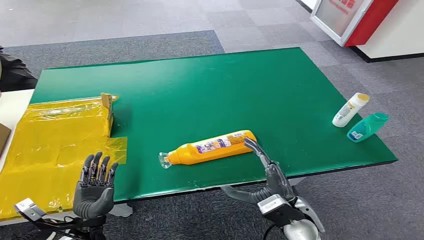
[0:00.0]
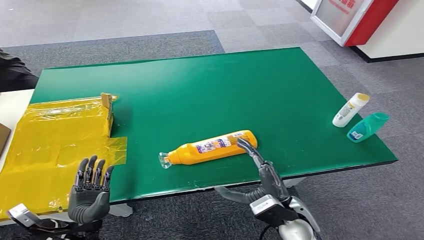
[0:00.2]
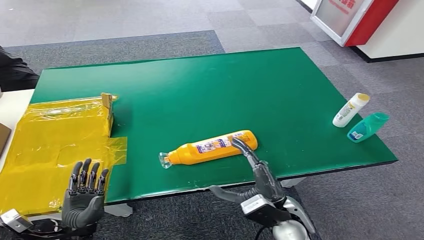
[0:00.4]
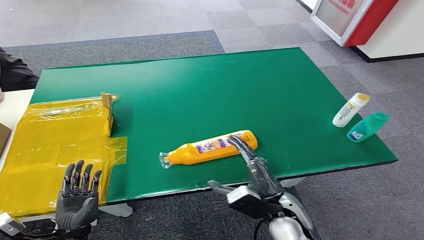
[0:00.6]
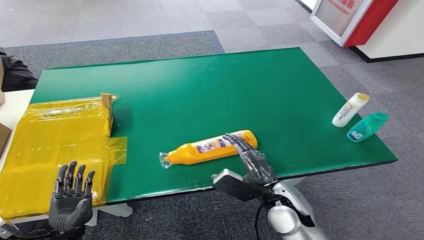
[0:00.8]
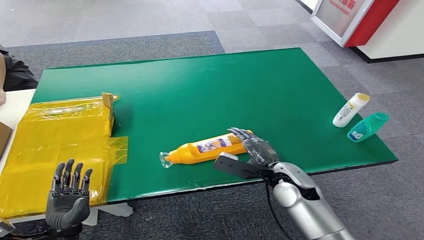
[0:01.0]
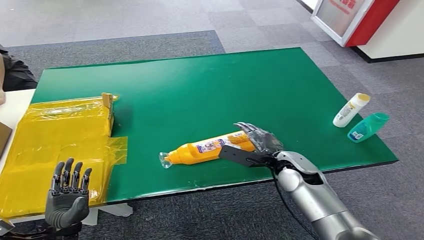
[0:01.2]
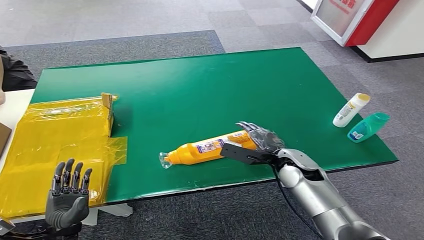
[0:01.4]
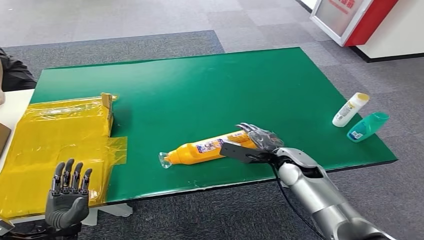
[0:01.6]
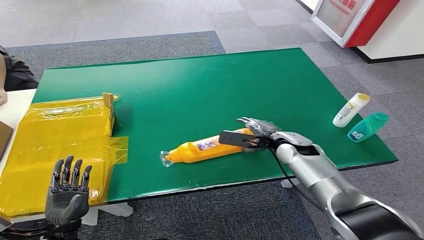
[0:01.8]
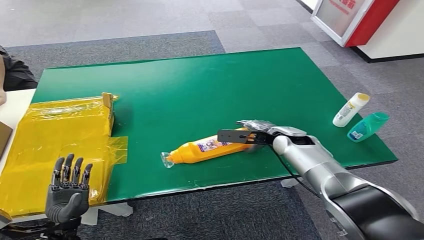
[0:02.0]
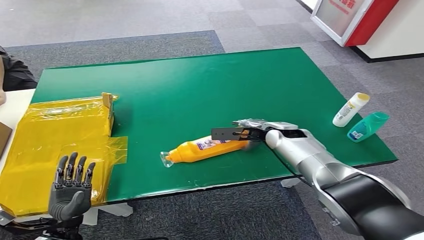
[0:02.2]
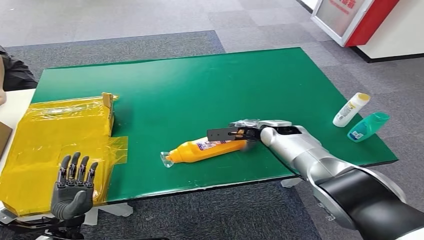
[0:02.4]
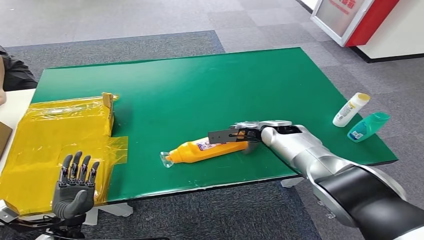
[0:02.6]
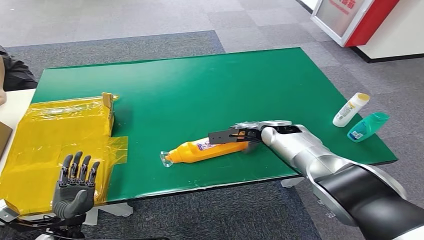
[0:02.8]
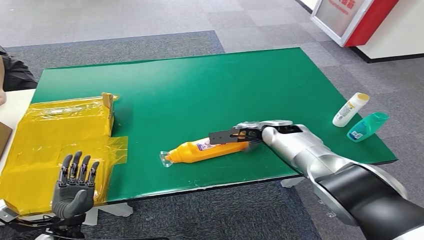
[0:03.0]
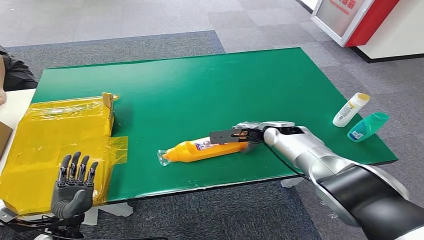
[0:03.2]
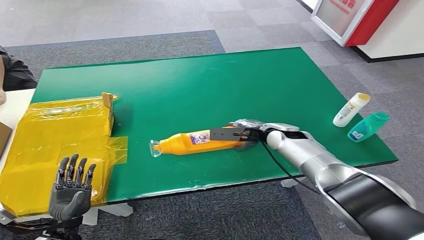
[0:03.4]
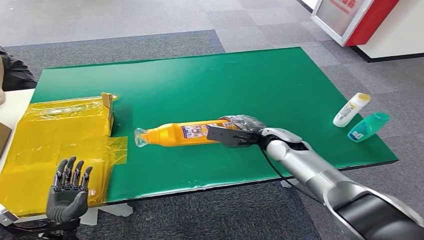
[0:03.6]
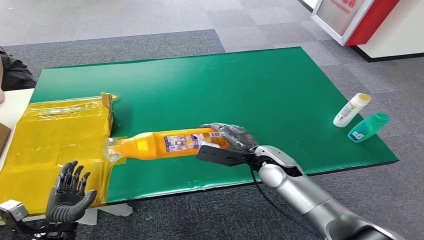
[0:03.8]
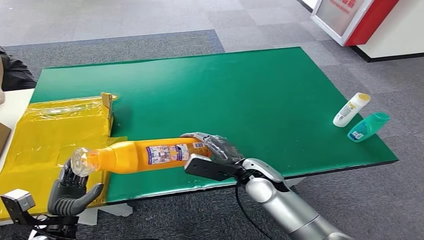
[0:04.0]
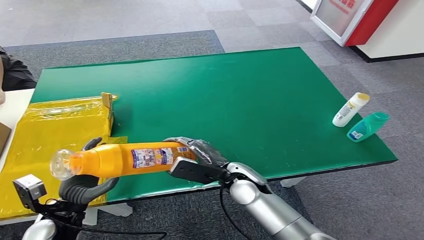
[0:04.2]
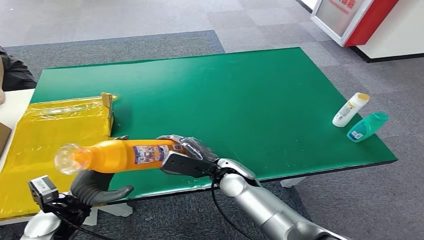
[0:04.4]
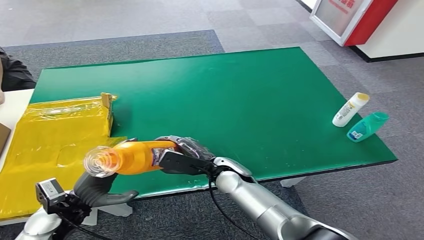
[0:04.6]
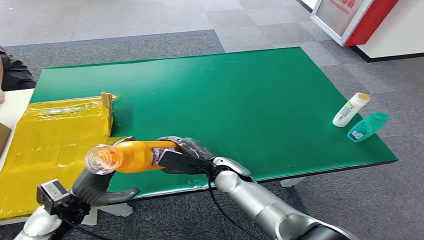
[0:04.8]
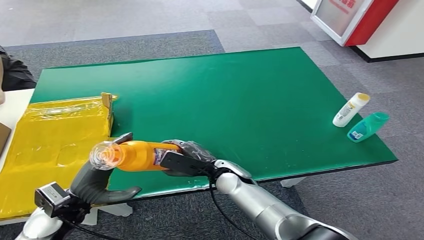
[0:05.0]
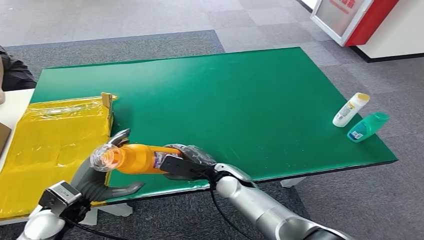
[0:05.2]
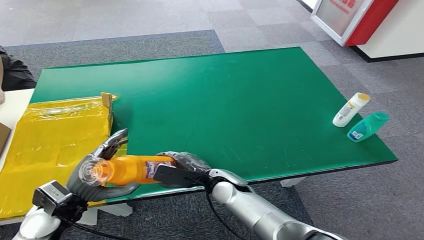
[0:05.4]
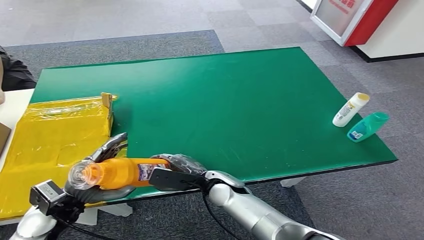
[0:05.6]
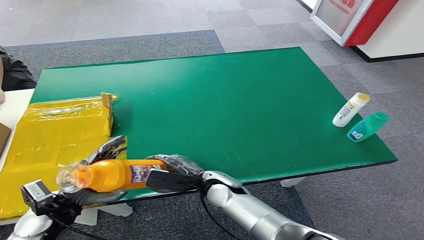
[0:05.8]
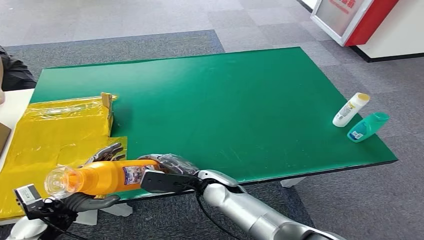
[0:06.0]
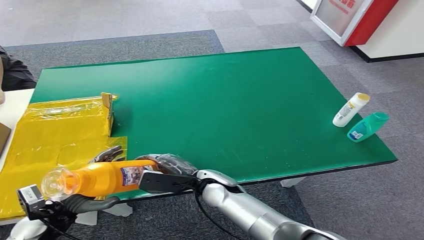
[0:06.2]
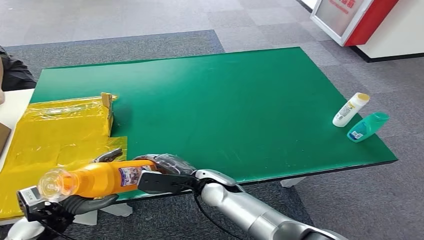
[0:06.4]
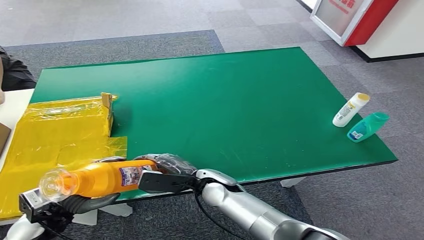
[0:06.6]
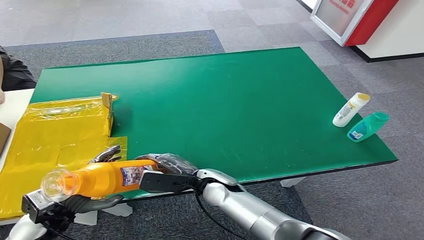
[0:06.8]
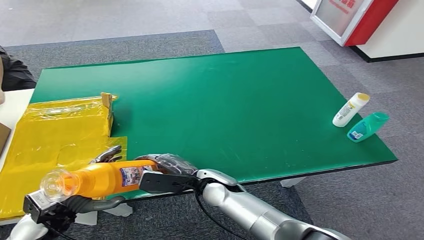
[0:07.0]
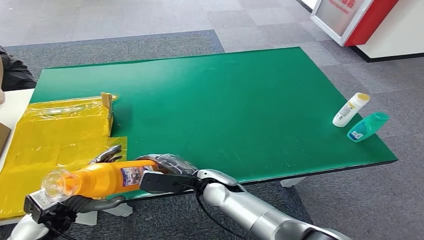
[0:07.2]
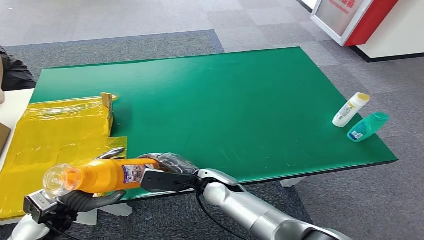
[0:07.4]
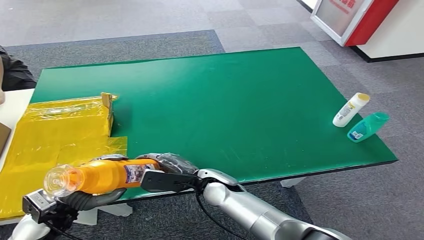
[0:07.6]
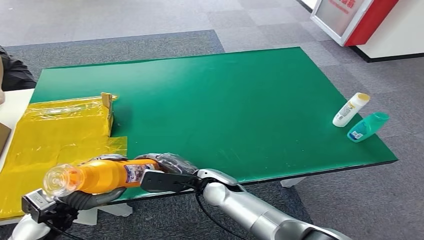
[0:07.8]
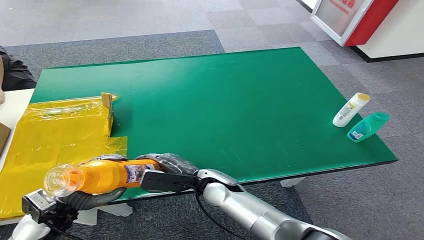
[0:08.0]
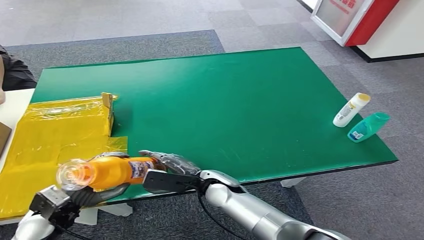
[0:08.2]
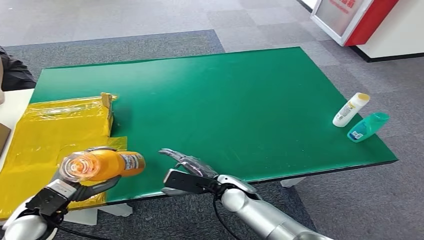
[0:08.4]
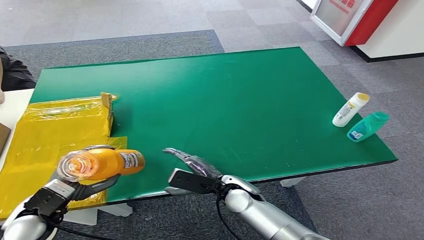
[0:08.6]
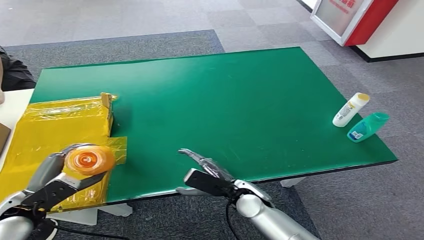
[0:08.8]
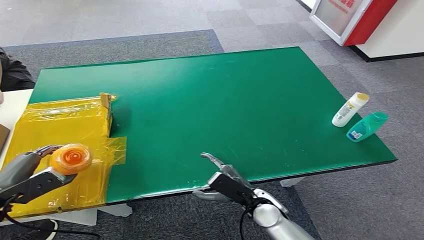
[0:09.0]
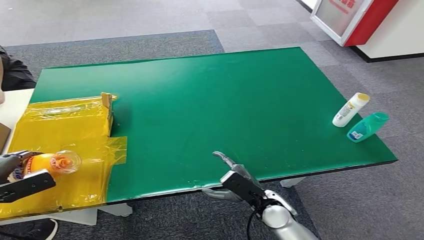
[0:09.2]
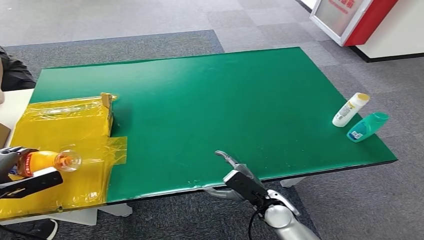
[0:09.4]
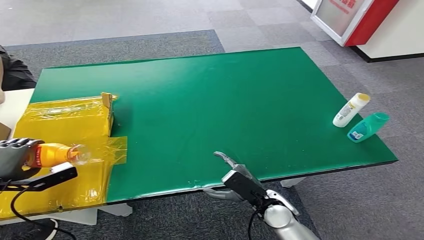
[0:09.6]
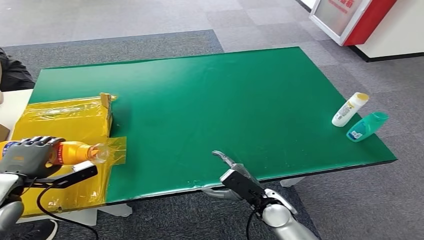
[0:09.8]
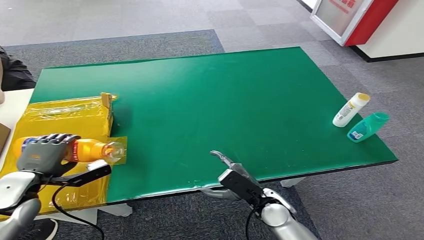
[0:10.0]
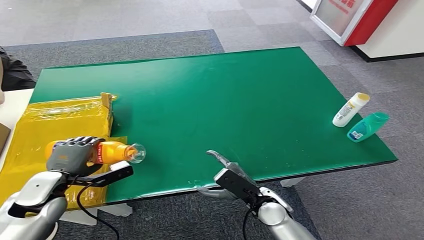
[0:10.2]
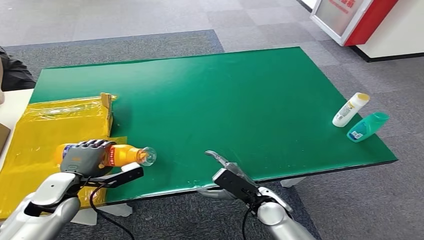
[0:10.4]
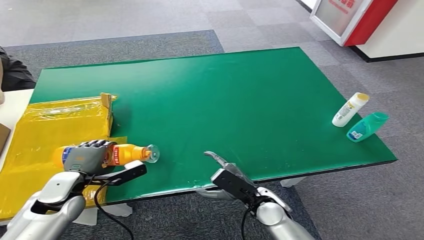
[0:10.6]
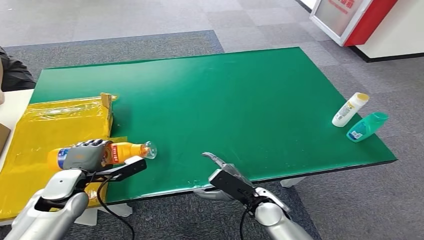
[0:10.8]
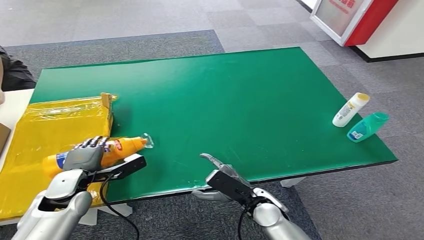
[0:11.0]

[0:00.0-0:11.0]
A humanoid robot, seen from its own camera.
Step, 0:00.0 to 0:04.2: Pick up the bottle from the table.
Step, 0:04.6 to 0:11.0: Turn the bottle to the front side.
0:01.6 to 0:03.2: The right hand is displaced forward by about 10 cm.
0:04.8 to 0:06.2: The left hand changes place by about 5 cm.
0:06.2 to 0:07.8: The hands make only small movements.
0:07.8 to 0:09.4: The left hand shifts approximately 15 cm to the left and upward. The right hand travels to the right and backward by roughly 15 cm.
0:09.4 to 0:11.0: The left hand goes roughly 20 cm to the right and downward.

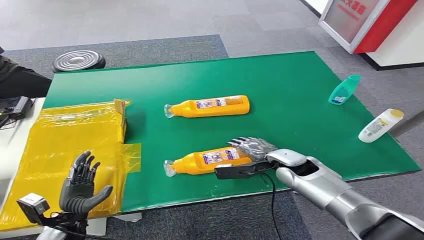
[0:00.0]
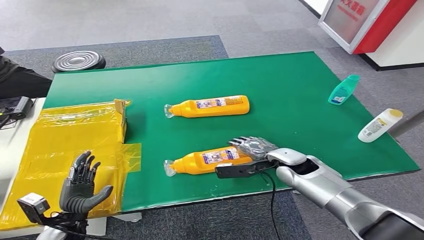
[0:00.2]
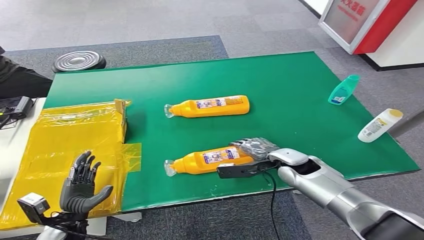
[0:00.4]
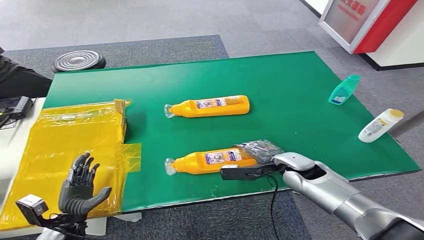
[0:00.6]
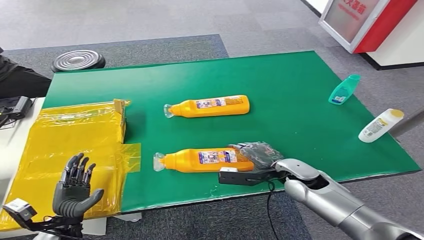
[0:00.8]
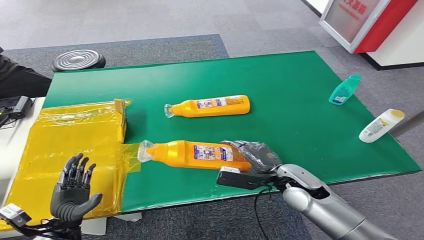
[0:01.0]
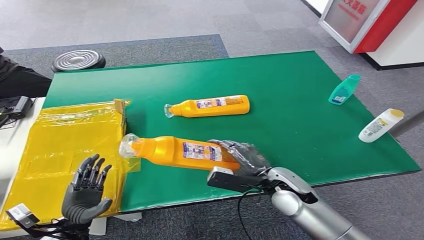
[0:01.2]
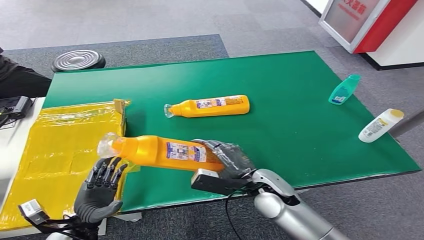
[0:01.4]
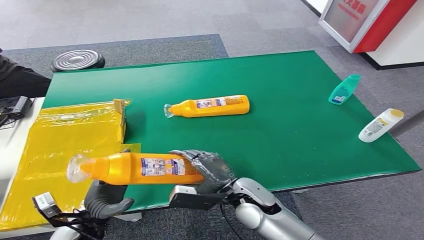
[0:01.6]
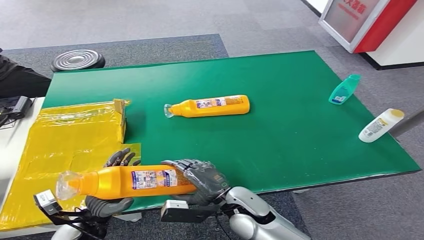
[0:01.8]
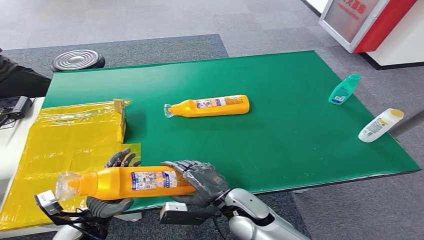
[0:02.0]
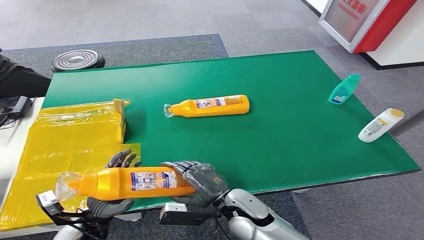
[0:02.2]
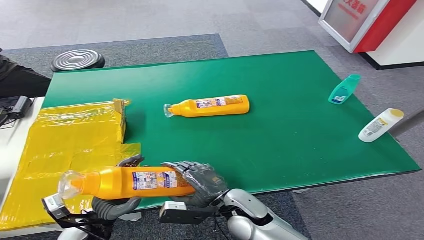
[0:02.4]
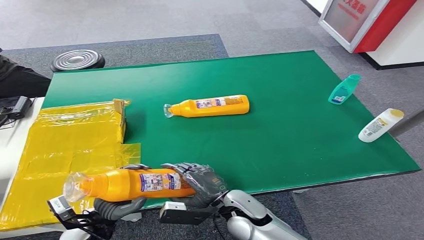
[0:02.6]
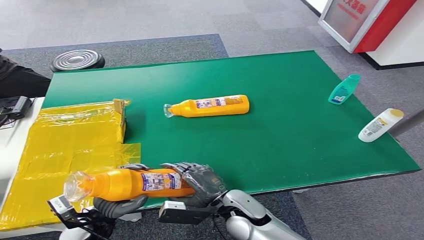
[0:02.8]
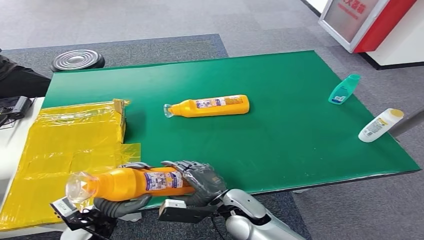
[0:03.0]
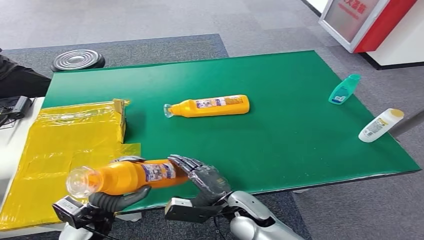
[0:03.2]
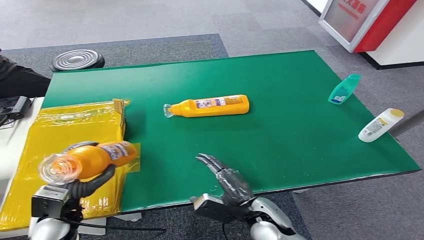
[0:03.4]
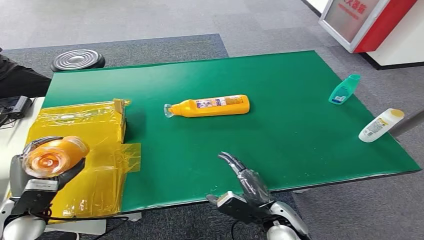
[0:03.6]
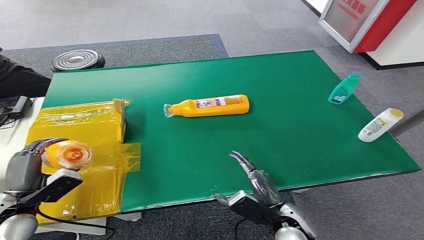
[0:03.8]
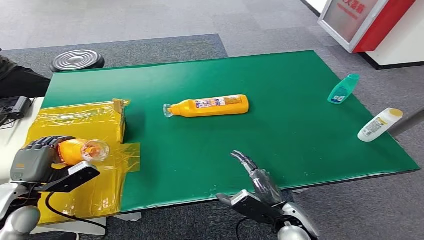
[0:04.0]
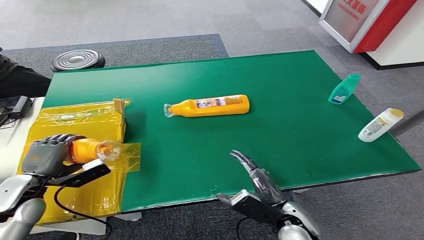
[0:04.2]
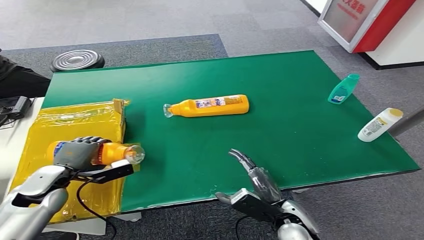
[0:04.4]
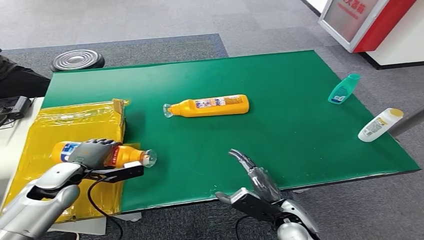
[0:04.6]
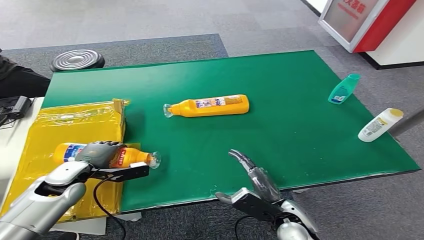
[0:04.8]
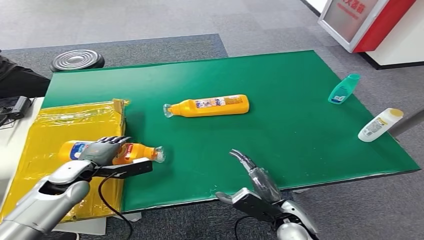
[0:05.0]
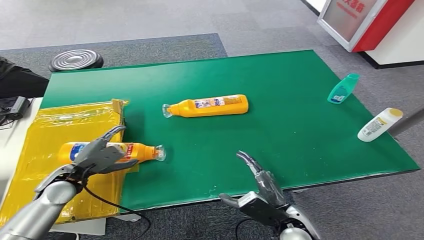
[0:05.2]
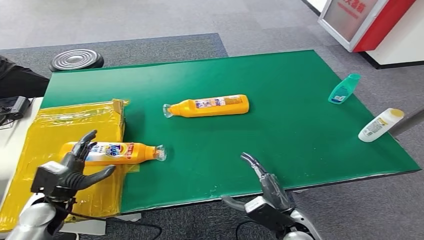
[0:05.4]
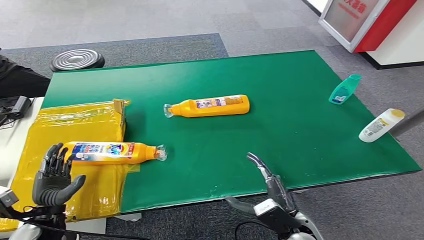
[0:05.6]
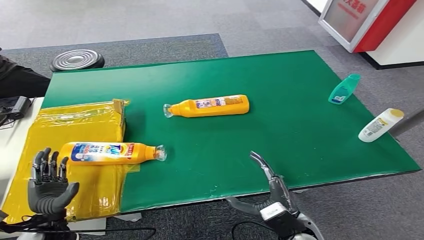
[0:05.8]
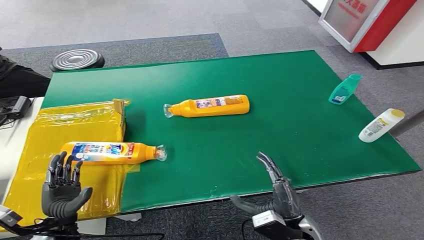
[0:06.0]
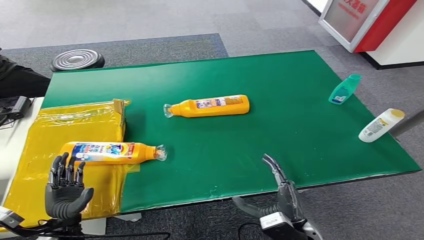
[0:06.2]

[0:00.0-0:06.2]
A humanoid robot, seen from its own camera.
Step, 0:00.0 to 0:01.8: Pick up the bottle from the table.
Step, 0:02.8 to 0:06.2: Turn the bottle to the front side.
0:03.2 to 0:04.6: The right hand travels to the right by roughly 10 cm; the left hand goes about 15 cm forward and to the left.
0:04.6 to 0:06.2: The right hand ends up about 5 cm from where it was; the left hand goes roughly 15 cm backward and downward.
